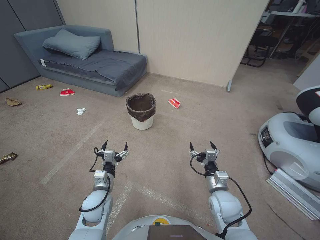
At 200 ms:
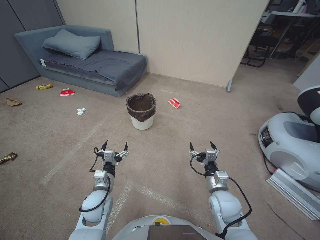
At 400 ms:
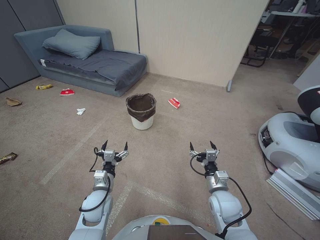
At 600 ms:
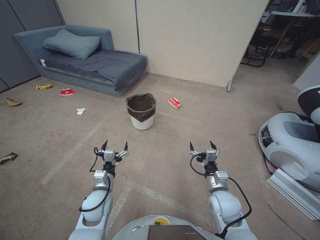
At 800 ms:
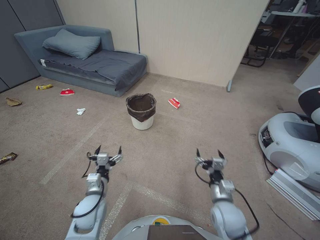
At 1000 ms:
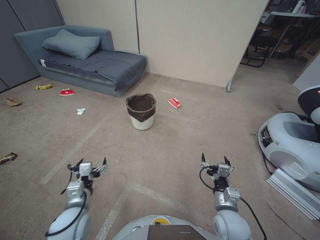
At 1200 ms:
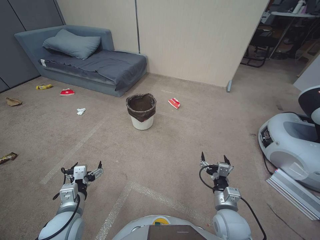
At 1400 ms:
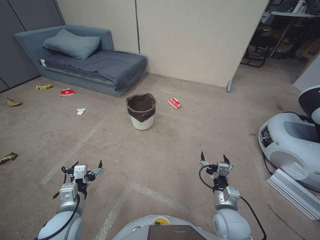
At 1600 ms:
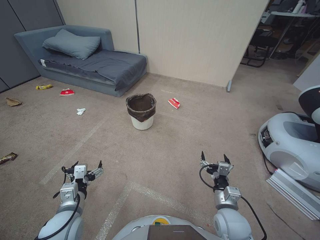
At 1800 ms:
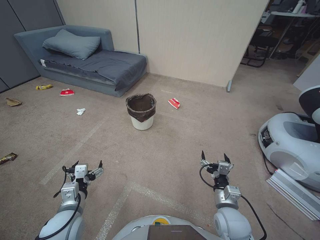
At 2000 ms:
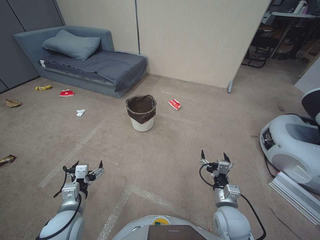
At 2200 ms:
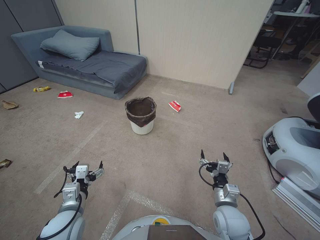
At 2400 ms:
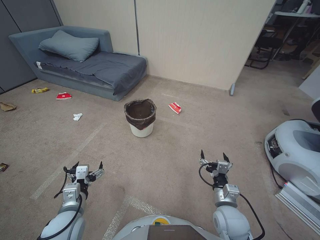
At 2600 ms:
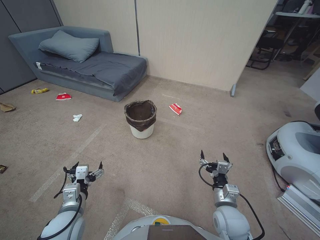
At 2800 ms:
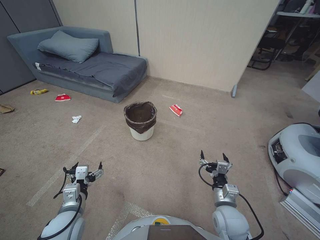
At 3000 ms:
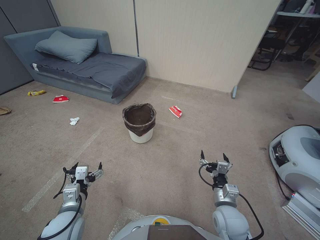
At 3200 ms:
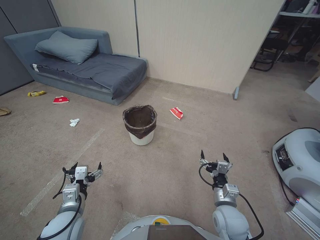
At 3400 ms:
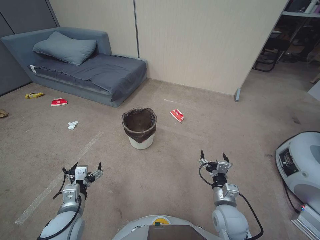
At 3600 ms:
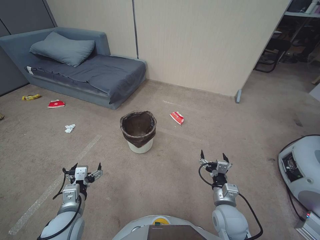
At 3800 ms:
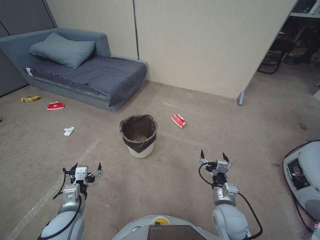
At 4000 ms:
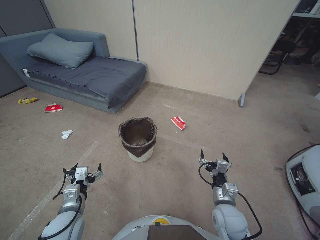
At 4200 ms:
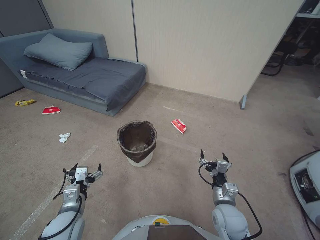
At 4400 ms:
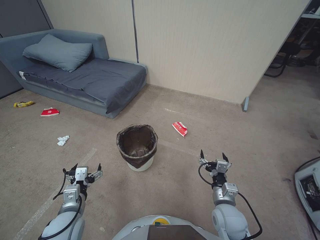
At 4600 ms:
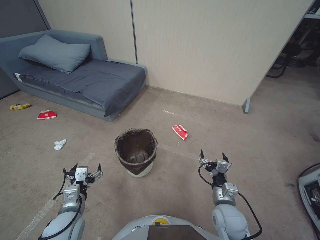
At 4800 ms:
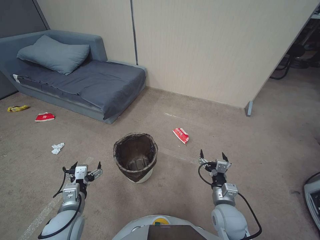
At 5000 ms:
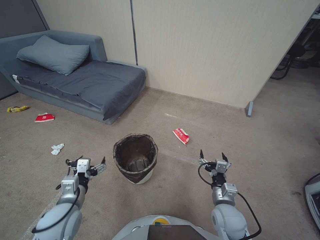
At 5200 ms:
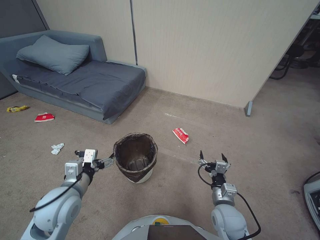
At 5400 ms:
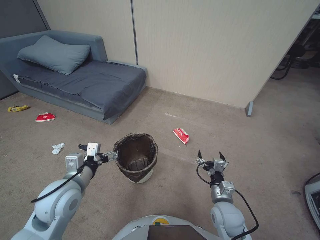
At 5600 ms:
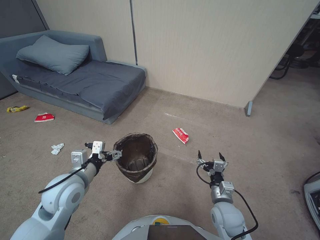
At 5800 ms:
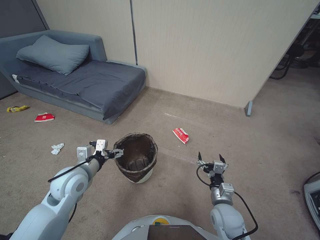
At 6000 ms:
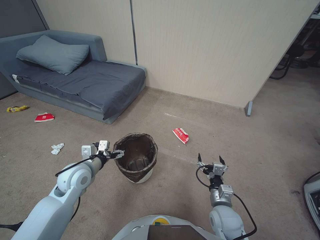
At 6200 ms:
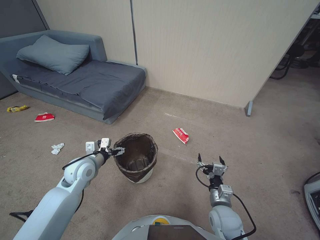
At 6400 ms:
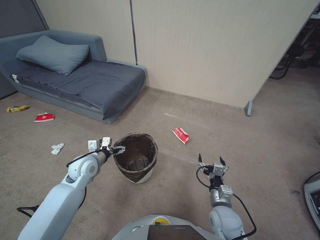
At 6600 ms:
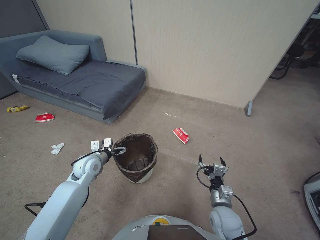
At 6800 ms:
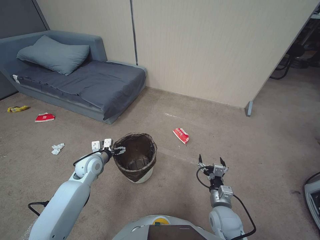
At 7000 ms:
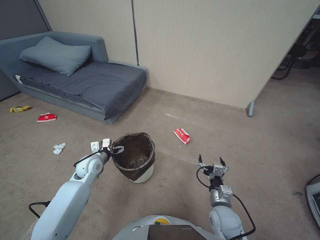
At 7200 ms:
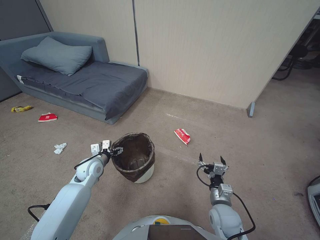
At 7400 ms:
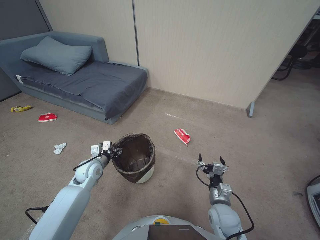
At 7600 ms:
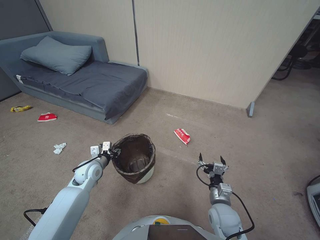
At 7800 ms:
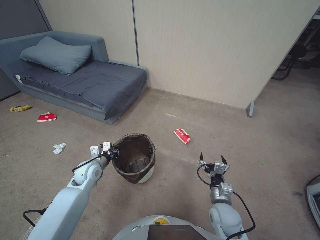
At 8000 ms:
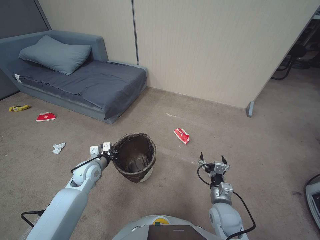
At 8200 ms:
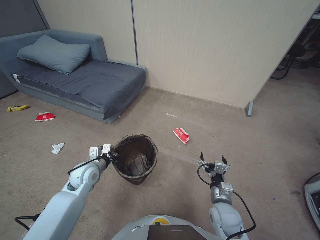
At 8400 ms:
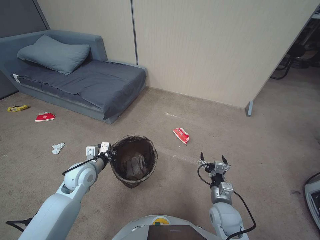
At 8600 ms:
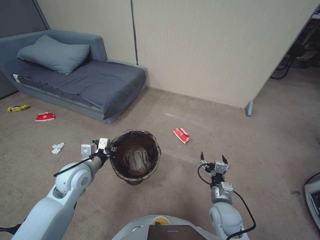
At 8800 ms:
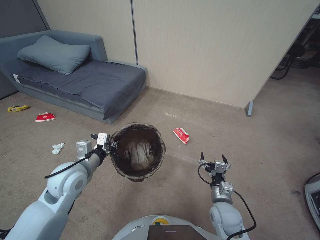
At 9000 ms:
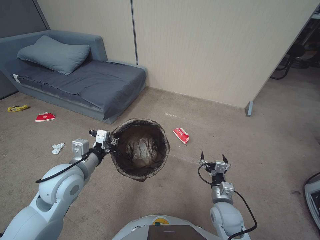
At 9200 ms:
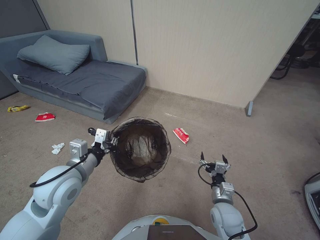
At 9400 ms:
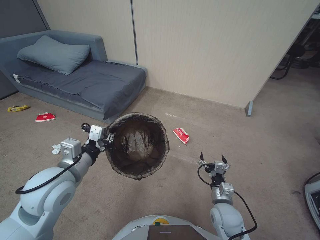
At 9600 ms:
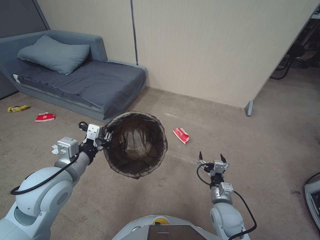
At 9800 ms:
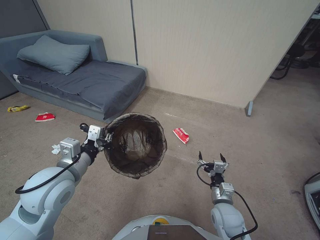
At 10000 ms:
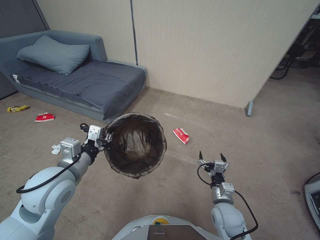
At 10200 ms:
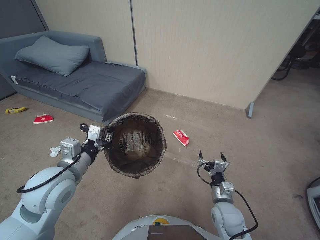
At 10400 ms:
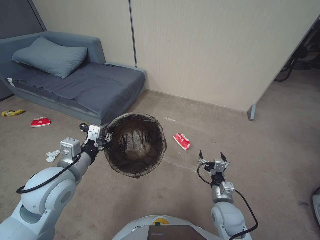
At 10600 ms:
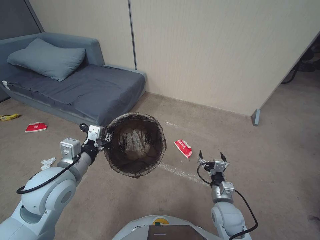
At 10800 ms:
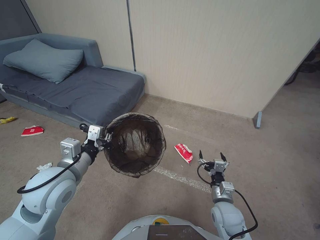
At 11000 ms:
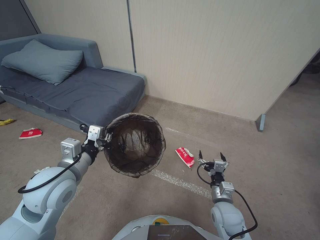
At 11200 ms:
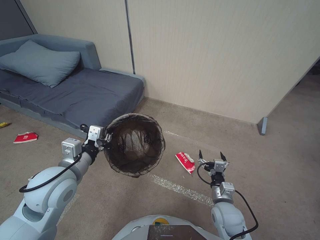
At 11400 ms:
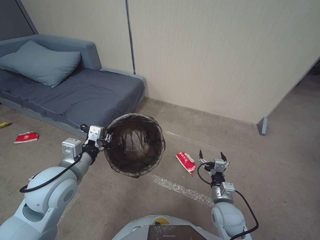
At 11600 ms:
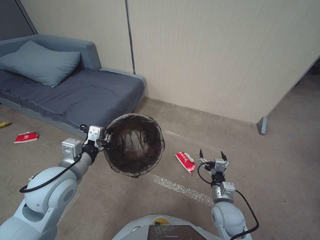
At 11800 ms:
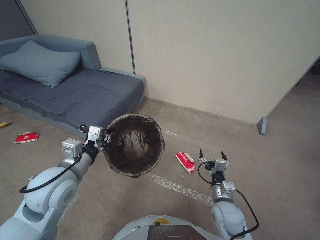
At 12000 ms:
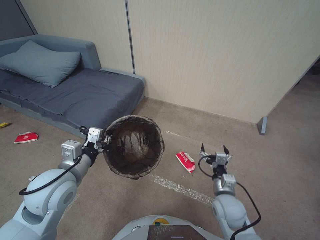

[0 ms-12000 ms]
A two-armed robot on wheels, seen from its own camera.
Task of the whole recording: Pick up the trash bin, then pick up the garbage from the floor and place it into the trash bin.
1600 ms to 3000 ms: Both grippers stay about where they are.
4400 ms to 6000 ms: The left gripper is displaced forward and upward by about 15 cm.
6000 ms to 7600 ms: The left gripper travels downward and forward by approximately 10 cm, and closes.
7600 ms to 9000 ms: The left gripper goes approximately 15 cm upward and backward, and closes its fingers.
9000 ms to 10400 ms: The left gripper shifts by approximately 5 cm.
10400 ms to 12000 ms: Both grippers stay about where they are.

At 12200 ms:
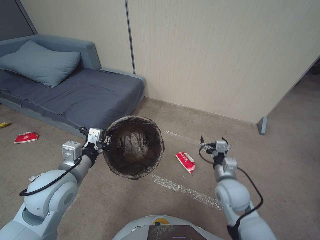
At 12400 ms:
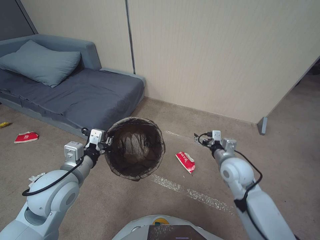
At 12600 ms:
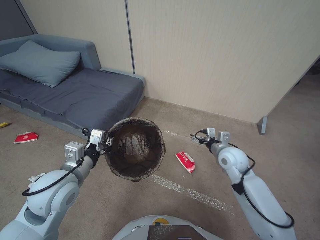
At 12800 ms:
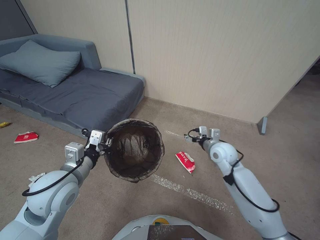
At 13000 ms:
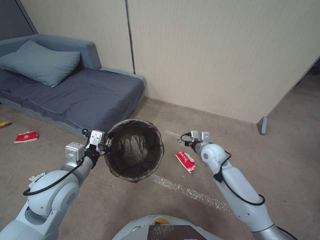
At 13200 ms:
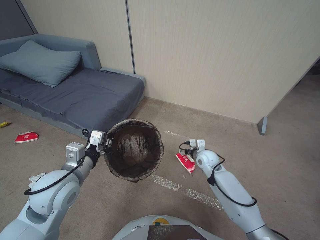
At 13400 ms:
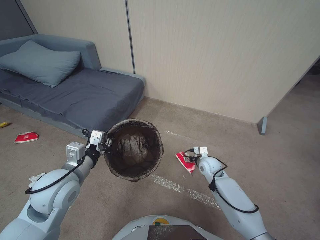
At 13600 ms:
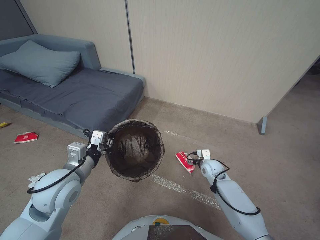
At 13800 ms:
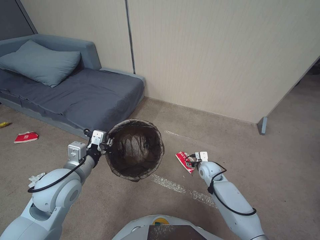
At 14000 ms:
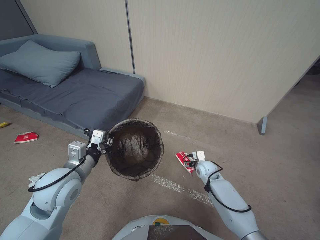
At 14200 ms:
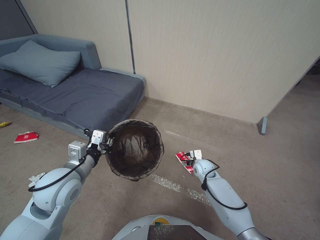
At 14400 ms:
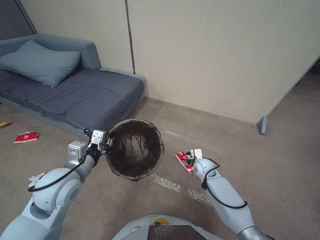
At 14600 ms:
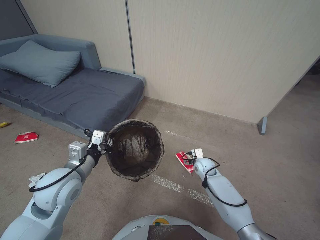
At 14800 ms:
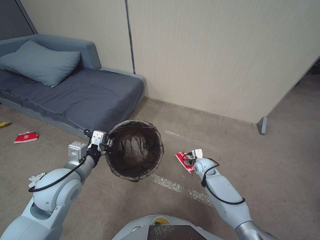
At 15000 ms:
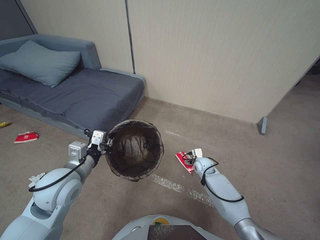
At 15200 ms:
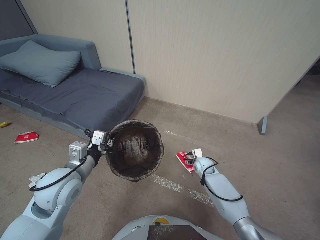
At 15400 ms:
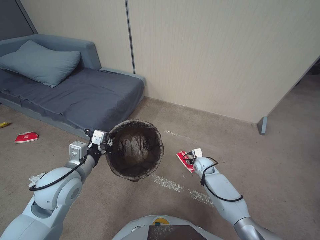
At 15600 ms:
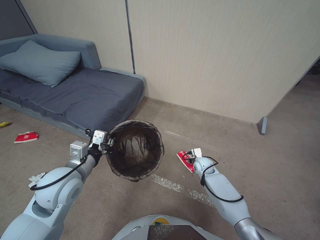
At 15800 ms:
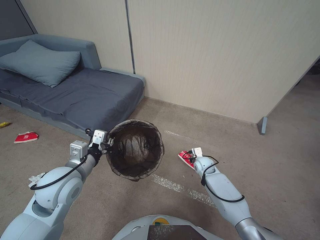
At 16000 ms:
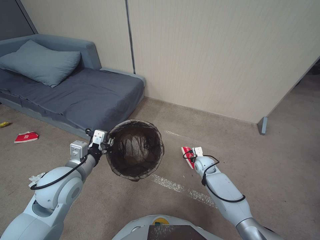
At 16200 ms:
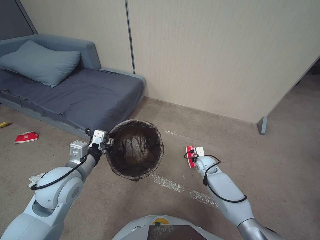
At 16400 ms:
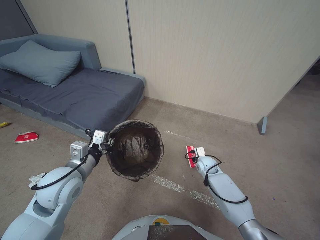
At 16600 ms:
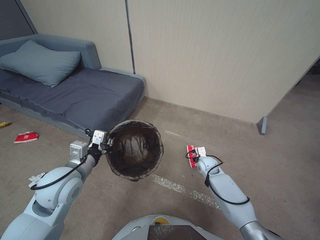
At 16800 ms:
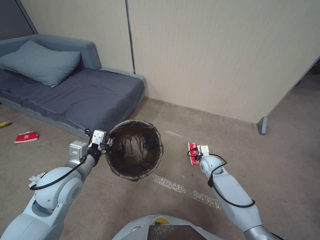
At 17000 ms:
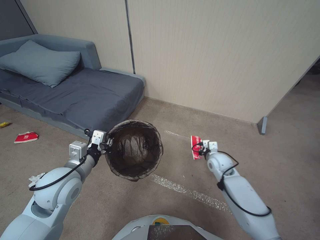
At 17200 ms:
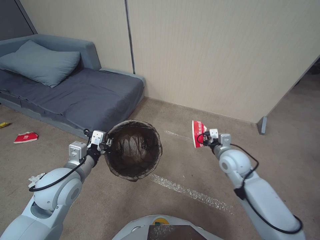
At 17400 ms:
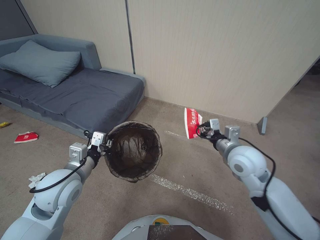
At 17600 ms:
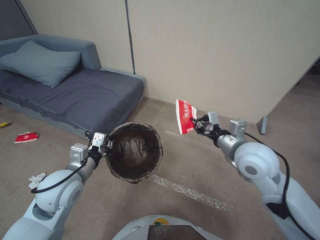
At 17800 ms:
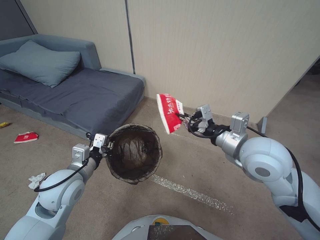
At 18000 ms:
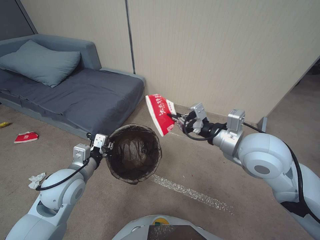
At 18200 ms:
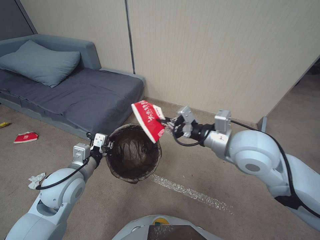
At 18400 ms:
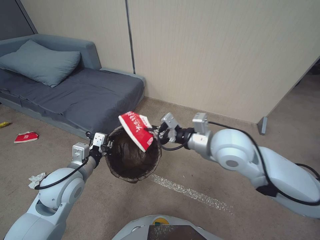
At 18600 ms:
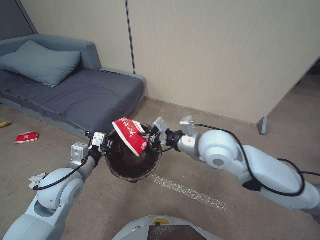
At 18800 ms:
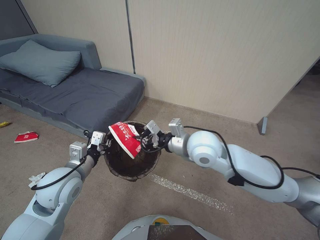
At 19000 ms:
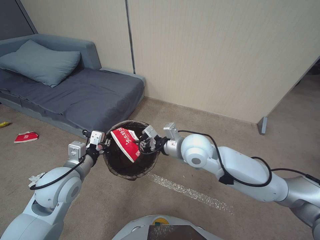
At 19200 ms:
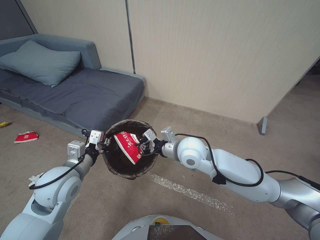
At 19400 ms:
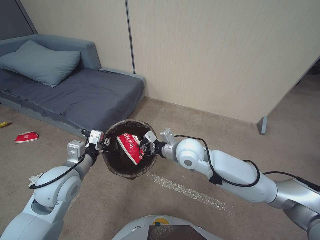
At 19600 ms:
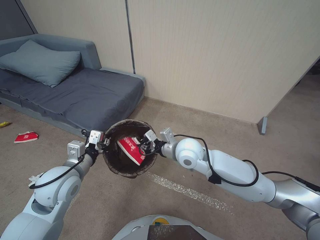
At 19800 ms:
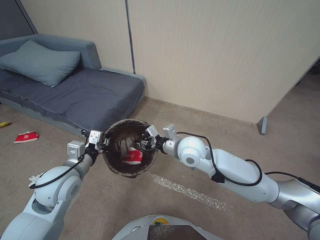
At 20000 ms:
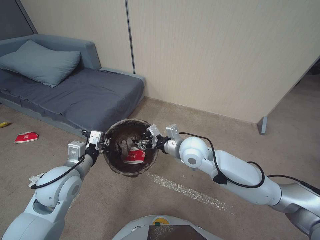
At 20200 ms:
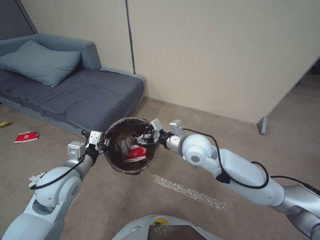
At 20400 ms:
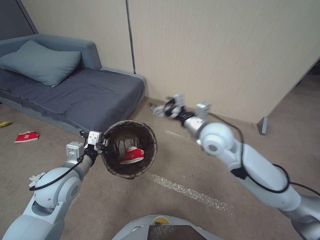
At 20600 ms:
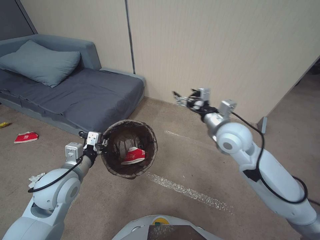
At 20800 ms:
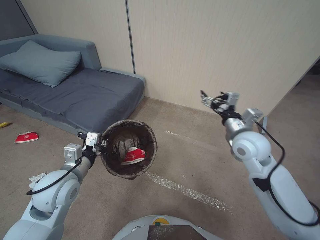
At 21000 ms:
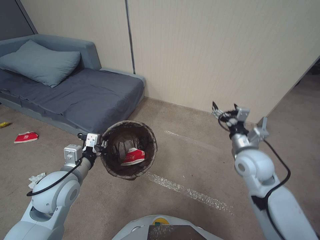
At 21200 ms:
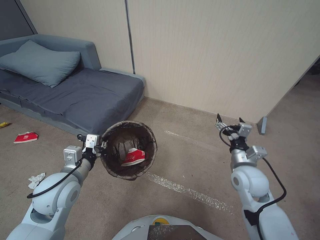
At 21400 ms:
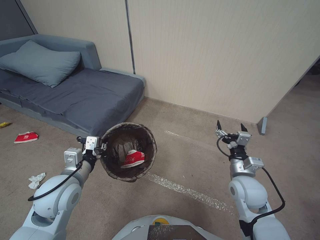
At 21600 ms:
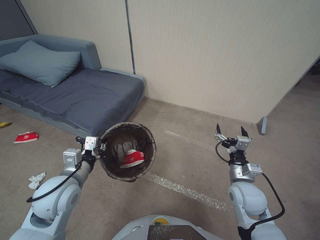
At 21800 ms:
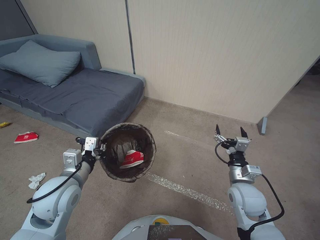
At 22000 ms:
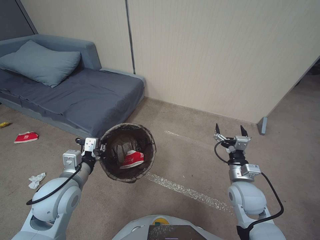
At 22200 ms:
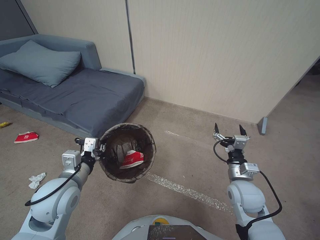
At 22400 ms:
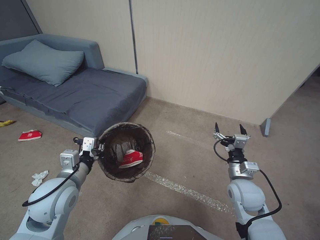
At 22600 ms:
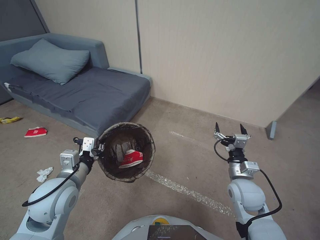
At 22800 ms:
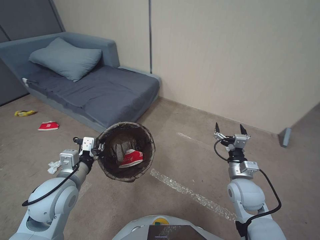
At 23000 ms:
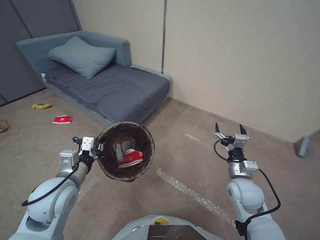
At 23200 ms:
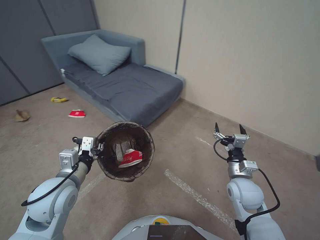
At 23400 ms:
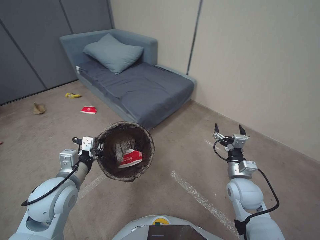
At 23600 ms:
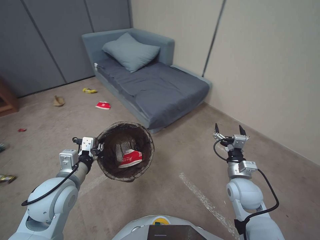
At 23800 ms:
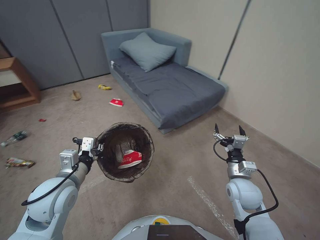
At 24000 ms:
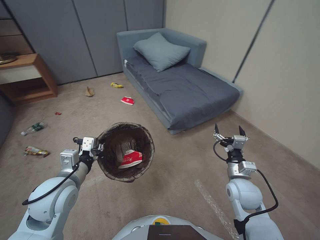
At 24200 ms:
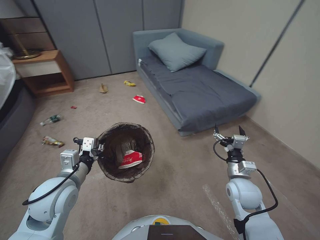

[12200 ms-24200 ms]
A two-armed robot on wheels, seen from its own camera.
Task of the whole recording: Pick up the trash bin, then pick up the garbage from the floor and place it into the trash bin.
12200 ms to 13800 ms: The right gripper heads forward and downward, covering some 15 cm.
13800 ms to 15200 ms: The right gripper changes place by about 5 cm.
15200 ms to 16600 ms: The right gripper closes up.
16600 ms to 18200 ms: The right gripper travels upward by approximately 35 cm.
18200 ms to 19800 ms: The right gripper is displaced downward, to the left and forward by approximately 15 cm.
19800 ms to 21200 ms: The right gripper heads to the right, covering roughly 20 cm, and opens its fingers.
21200 ms to 22600 ms: The right gripper is displaced downward by about 5 cm.
